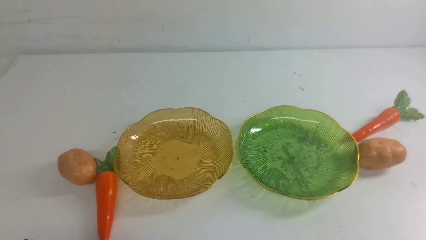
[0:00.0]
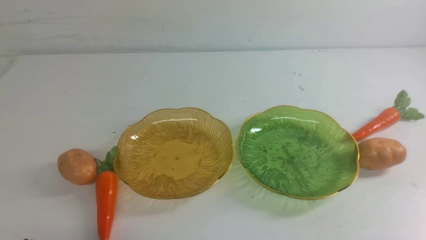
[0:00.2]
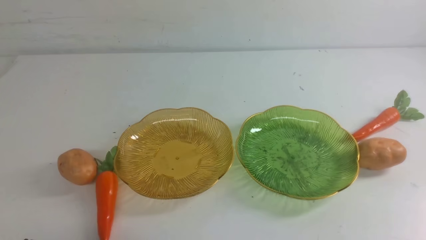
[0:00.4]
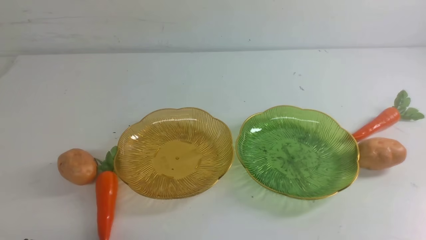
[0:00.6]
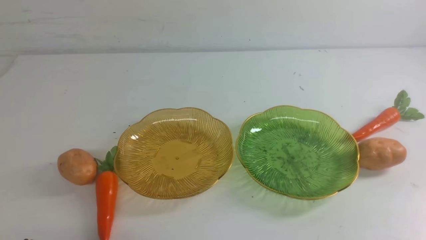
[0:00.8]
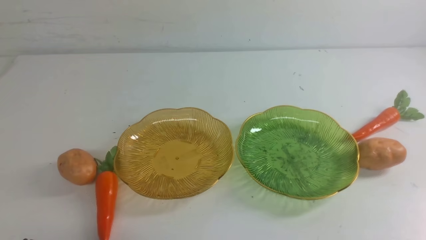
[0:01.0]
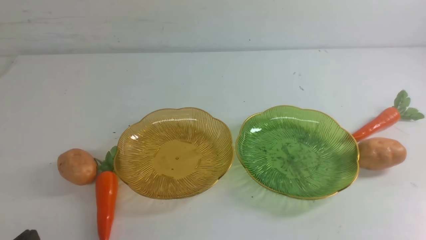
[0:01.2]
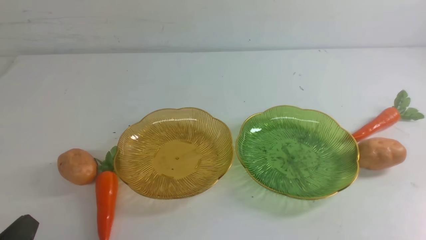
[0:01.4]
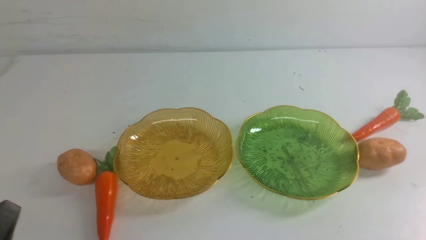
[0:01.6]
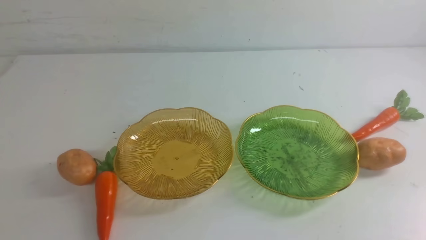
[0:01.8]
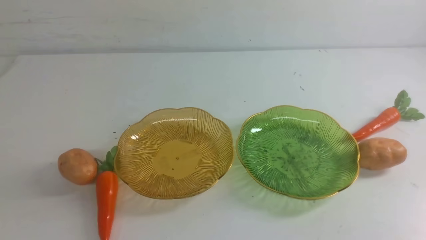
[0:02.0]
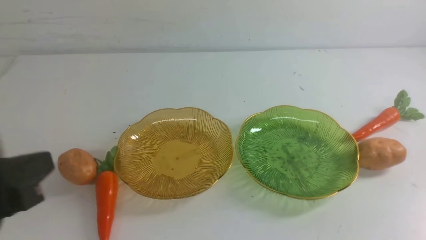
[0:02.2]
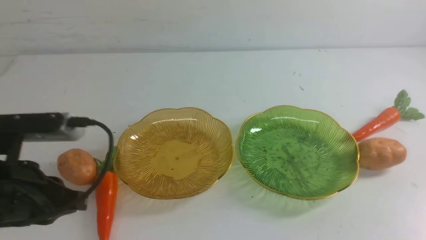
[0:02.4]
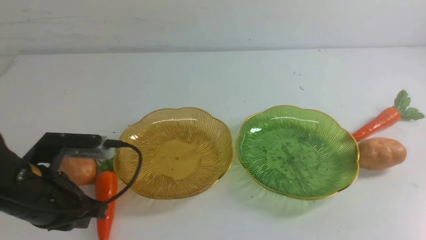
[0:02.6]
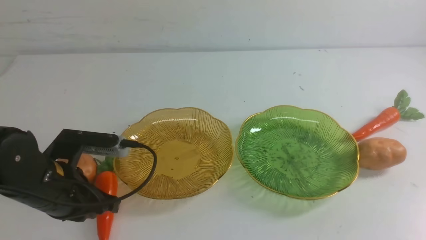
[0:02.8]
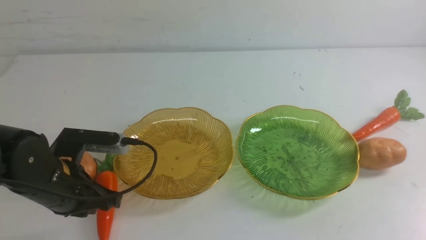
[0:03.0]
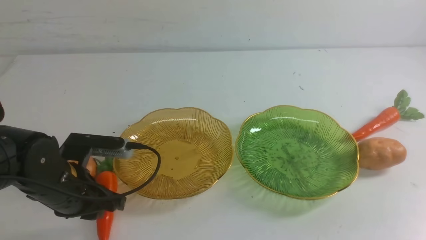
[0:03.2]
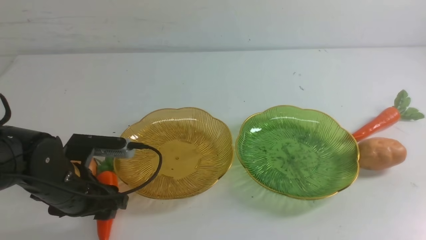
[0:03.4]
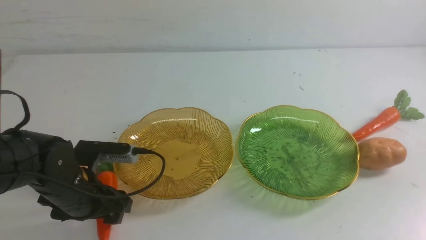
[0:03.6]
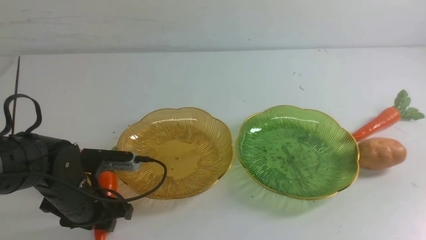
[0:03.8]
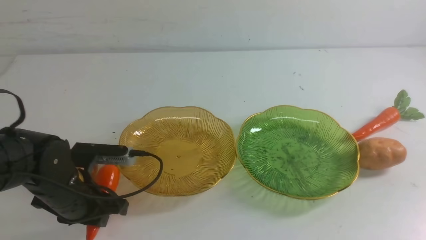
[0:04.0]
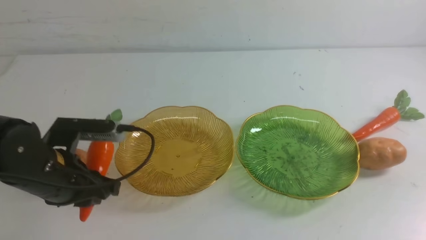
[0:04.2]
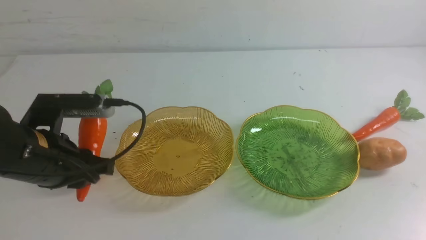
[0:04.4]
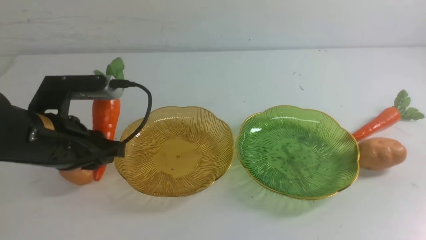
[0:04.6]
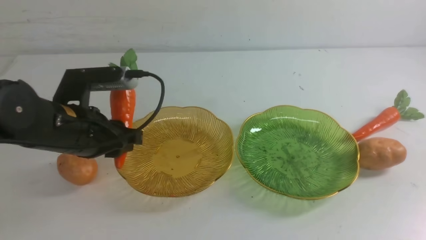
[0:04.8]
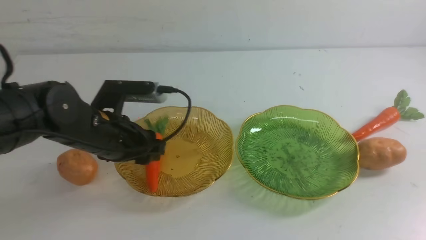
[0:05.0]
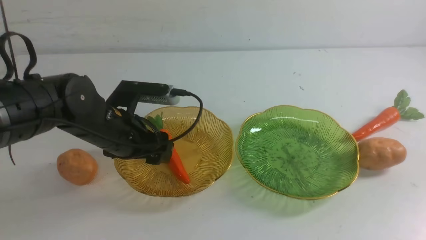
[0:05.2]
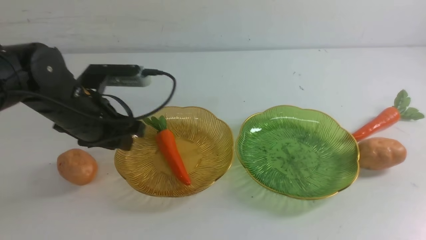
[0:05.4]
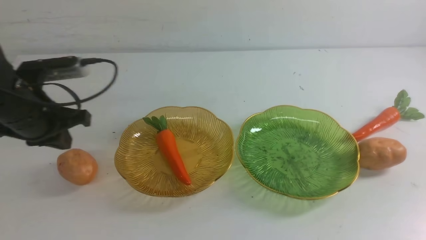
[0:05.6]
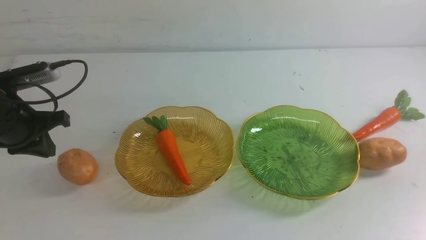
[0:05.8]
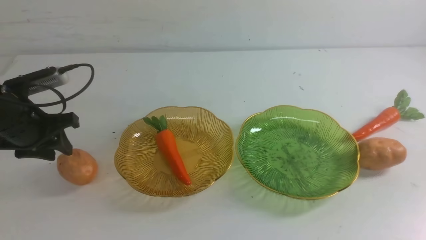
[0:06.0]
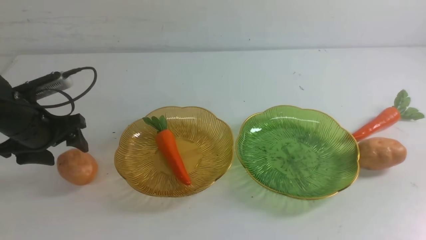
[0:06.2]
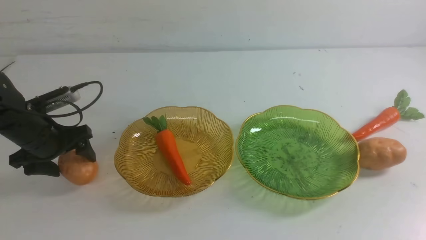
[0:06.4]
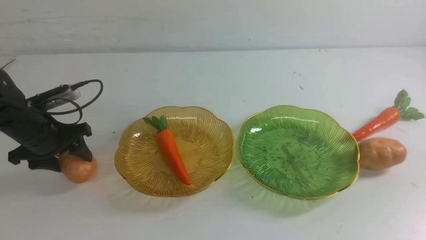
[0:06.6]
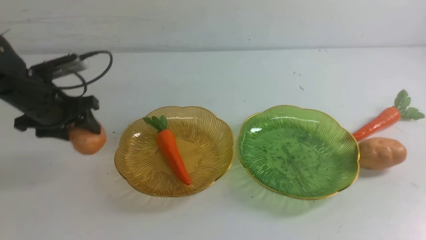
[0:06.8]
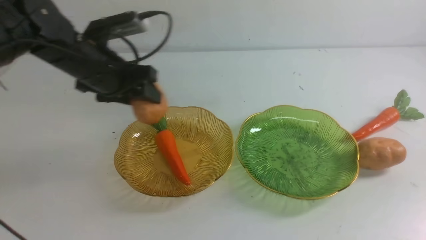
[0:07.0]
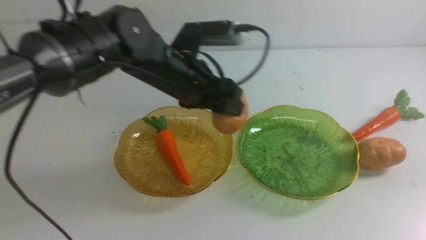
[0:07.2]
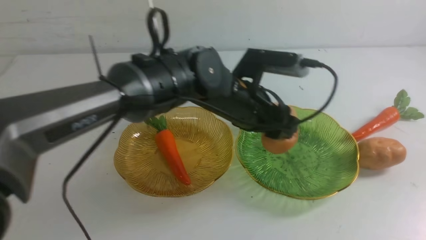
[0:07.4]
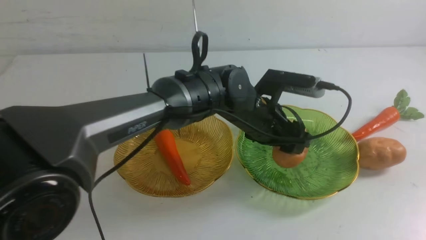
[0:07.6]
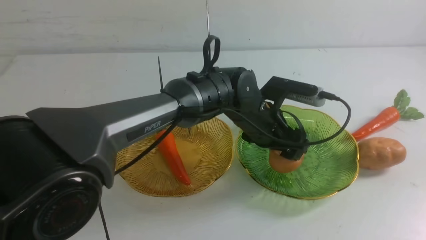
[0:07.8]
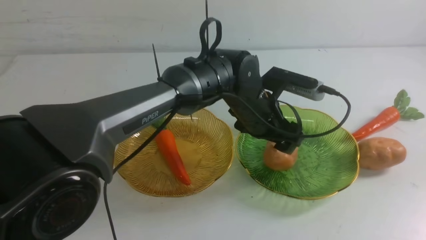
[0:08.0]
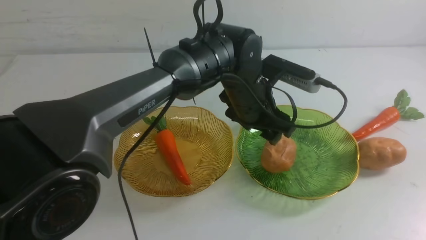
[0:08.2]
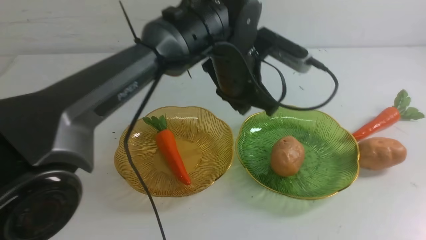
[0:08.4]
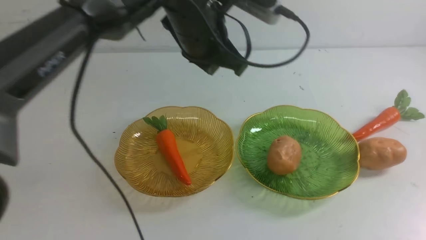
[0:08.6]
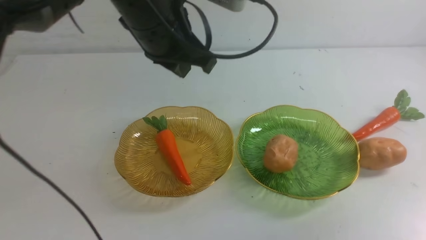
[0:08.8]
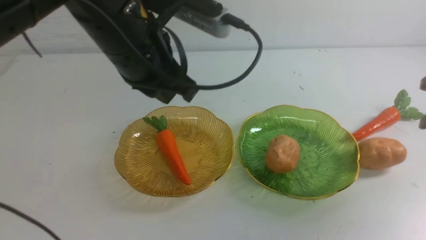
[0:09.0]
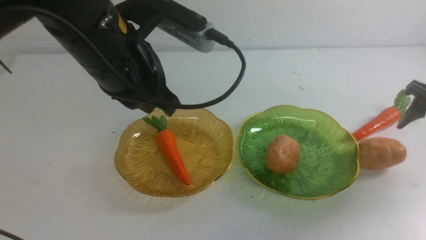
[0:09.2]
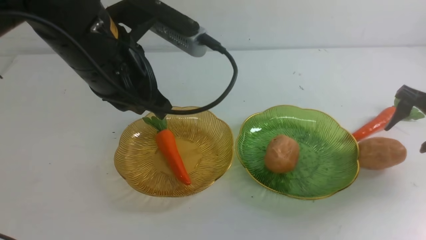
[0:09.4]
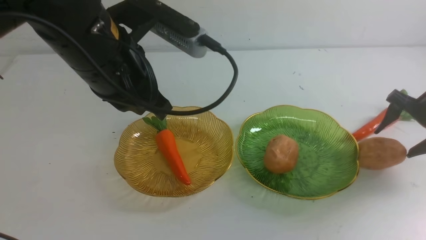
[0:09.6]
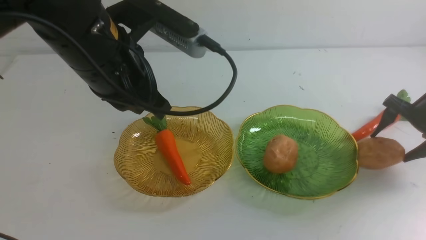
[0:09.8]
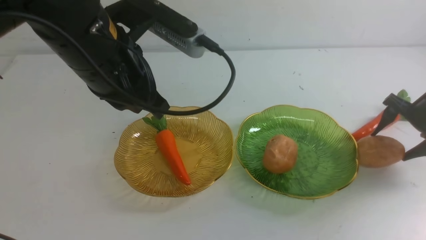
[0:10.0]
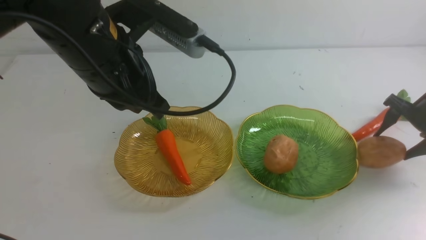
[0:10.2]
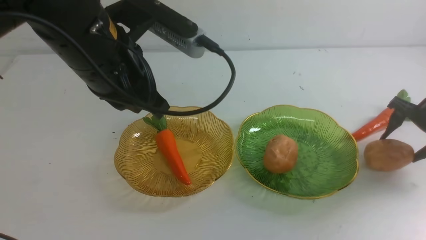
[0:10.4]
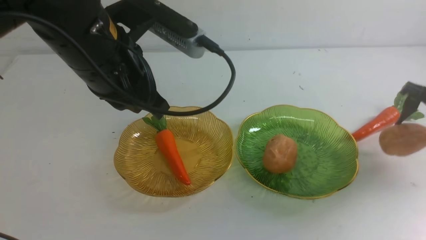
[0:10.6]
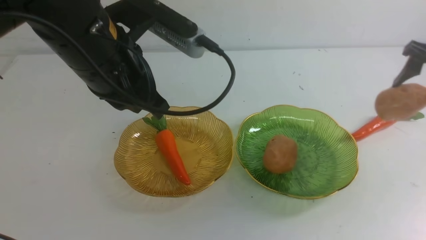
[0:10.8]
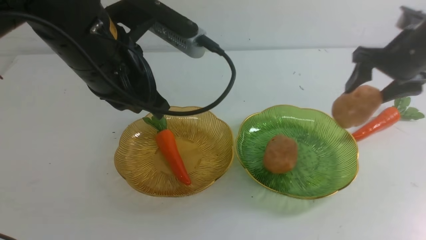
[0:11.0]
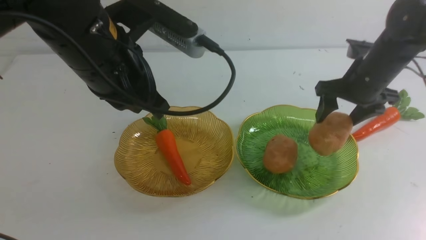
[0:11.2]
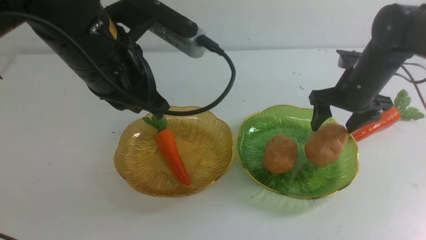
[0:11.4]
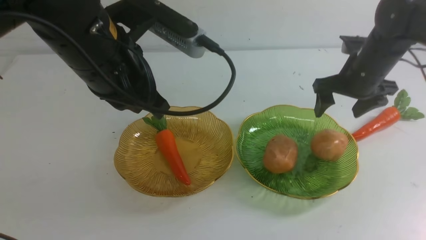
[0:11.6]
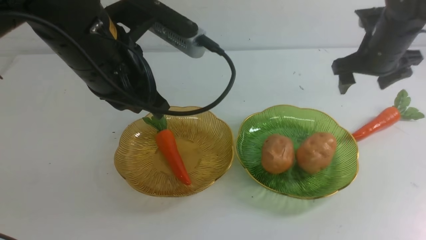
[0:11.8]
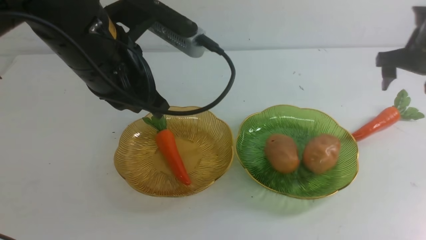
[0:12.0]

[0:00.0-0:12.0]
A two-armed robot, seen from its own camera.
Step, 0:00.0 to 0:05.4: use the left arm to grab a carrot and put it into the left plate.
Step, 0:05.6 to 0:08.2: Grab a potato with your left arm and put it on the right plate.
Step, 0:08.4 to 0:11.8: Grab a potato with your right arm and put it on the right plate.
0:01.6 to 0:03.0: The left gripper shifts roughly 20 cm forward.
0:03.0 to 0:04.4: The right gripper moves upward, approximately 15 cm. Meanwhile the left gripper travels upward by about 5 cm, and opens, then closes once more.
0:04.4 to 0:06.0: The left gripper is displaced to the left, forward and downward by some 15 cm, and opens.
0:06.0 to 0:07.6: The left gripper is displaced to the right by about 35 cm; the right gripper moves forward, about 10 cm.
0:07.6 to 0:09.0: The left gripper is displaced to the left, upward and backward by roughly 20 cm, and closes up. Meanwhile the right gripper goes roughly 30 cm forward and downward, and opens up.
0:09.0 to 0:10.4: The right gripper goes approximately 10 cm upward and to the left.
0:10.4 to 0:12.0: The right gripper heads downward, forward and to the right, covering some 10 cm.

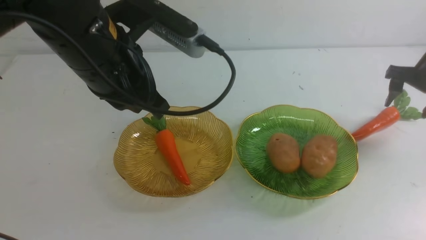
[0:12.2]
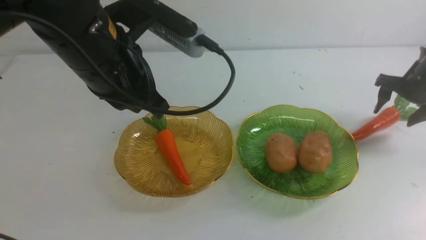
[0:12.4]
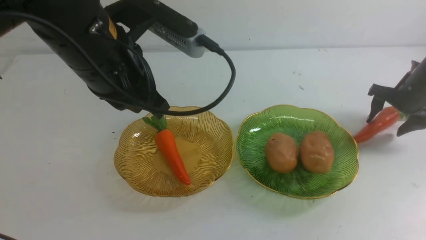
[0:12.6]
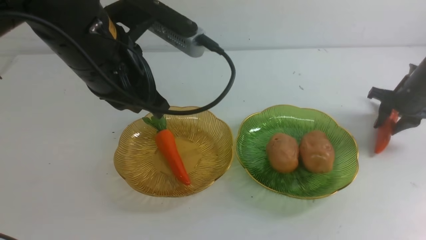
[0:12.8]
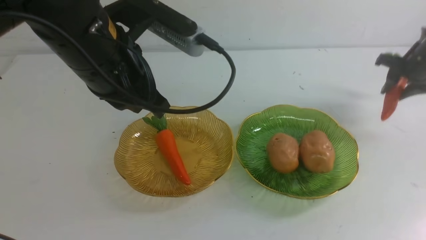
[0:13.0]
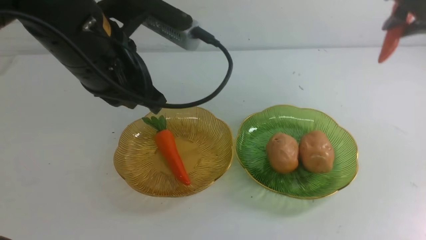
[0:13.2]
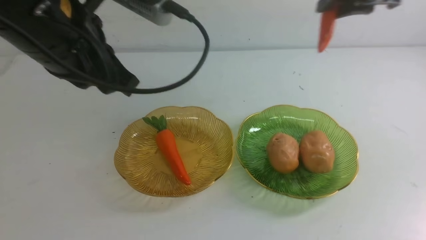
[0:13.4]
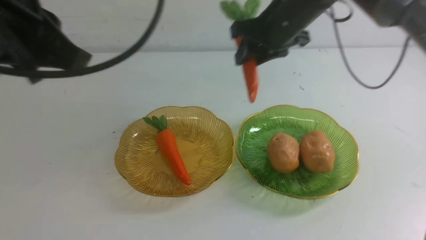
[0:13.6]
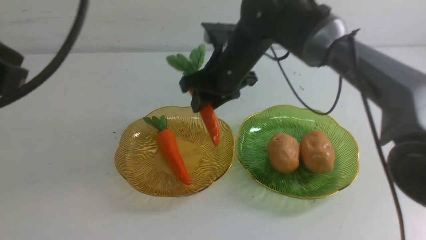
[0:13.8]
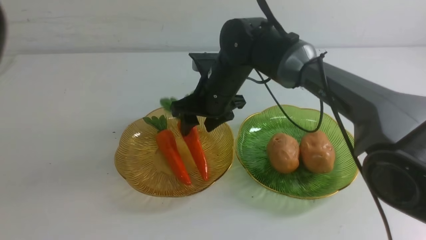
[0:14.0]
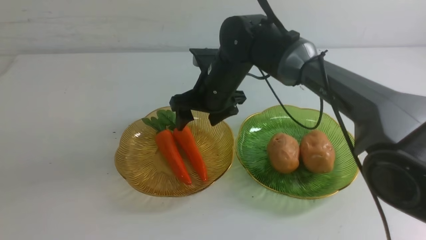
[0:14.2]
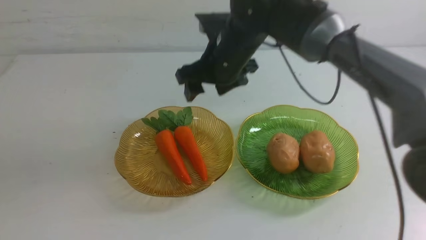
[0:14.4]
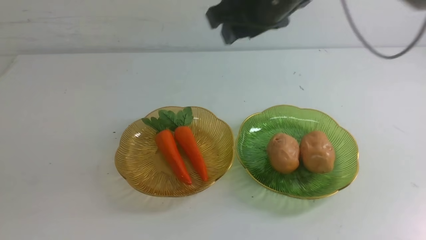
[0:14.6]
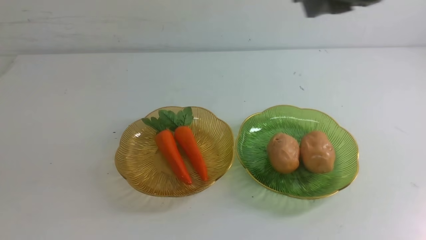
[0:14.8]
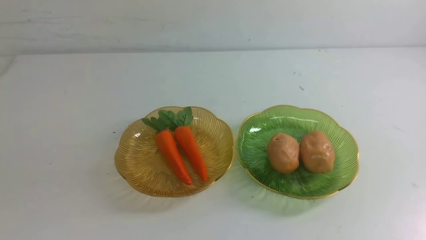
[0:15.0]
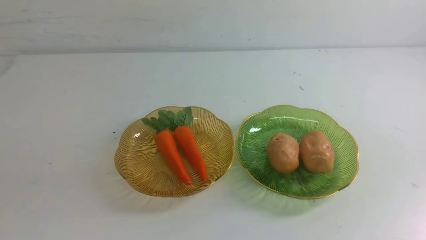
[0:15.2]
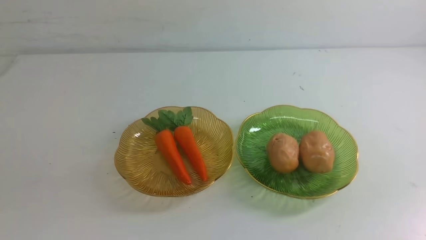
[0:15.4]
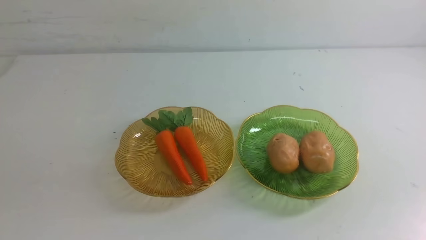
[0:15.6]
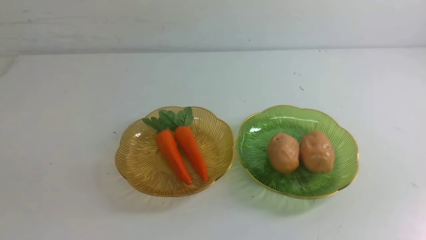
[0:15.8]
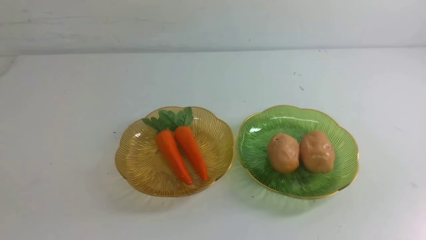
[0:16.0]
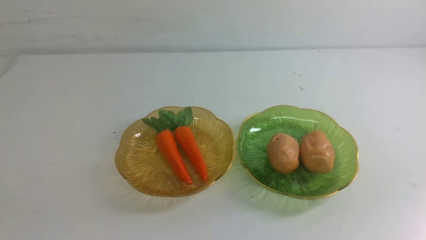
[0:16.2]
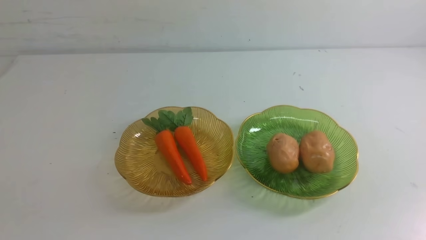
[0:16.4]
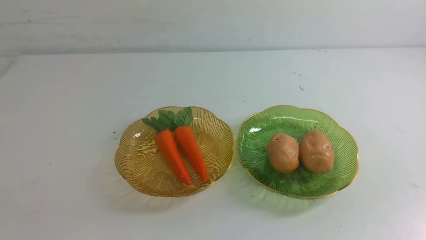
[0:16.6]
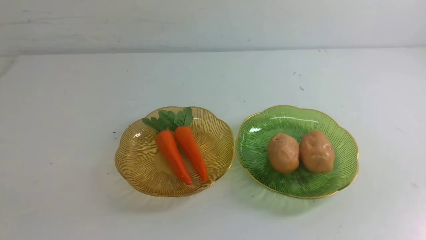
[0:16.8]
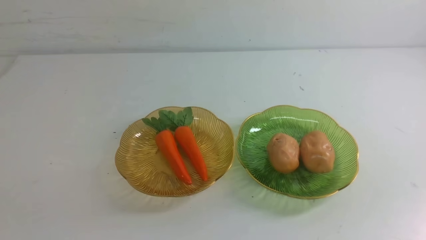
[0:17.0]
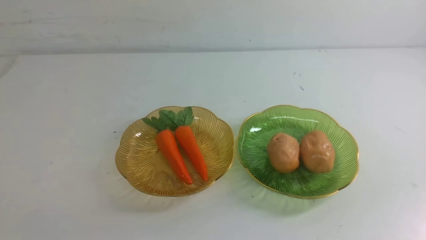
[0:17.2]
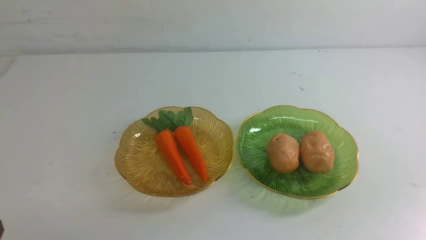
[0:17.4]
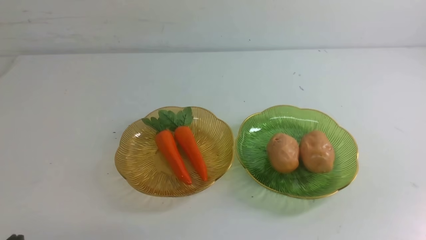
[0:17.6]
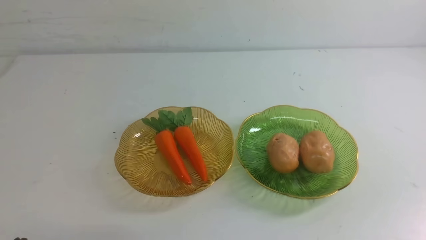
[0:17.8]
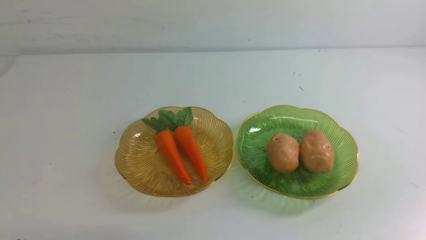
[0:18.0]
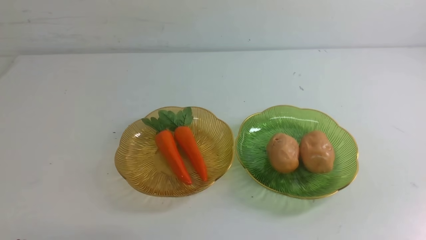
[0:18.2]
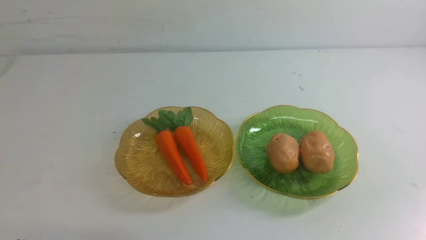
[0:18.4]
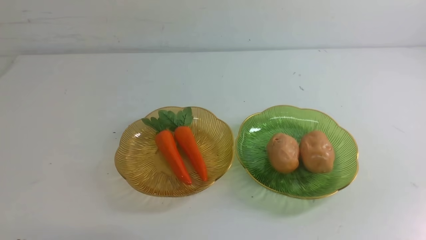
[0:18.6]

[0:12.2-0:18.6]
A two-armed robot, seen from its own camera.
Step, 0:12.2 to 0:14.4: Grab a potato with your right arm and put it on the left plate.
0:12.2 to 0:13.8: The left gripper travels backward, to the left and upward by approximately 20 cm. Meanwhile the right gripper moves to the left, about 35 cm.
0:13.8 to 0:15.4: The left gripper shifts some 10 cm backward and downward. The right gripper moves backward and to the right, approximately 50 cm, and closes up.
